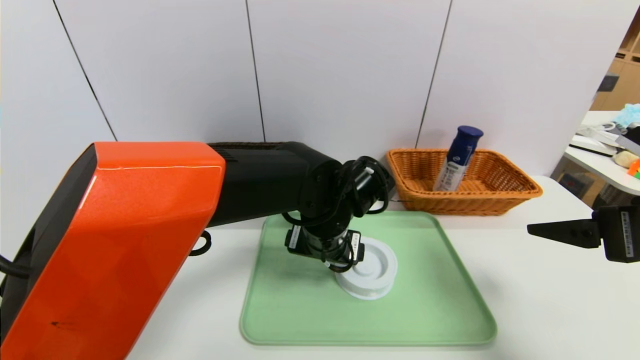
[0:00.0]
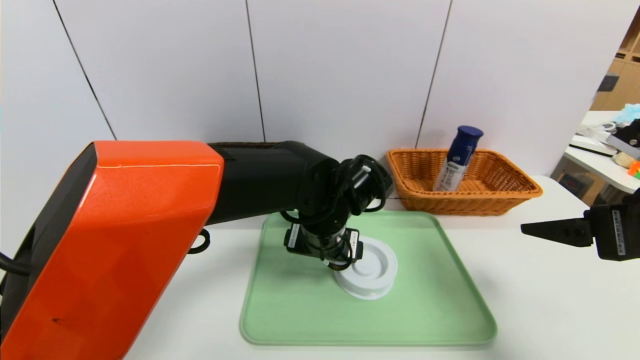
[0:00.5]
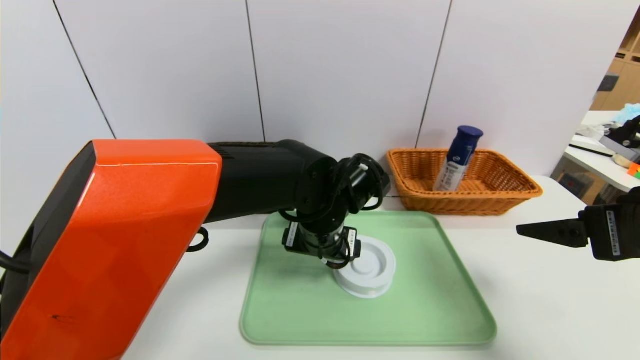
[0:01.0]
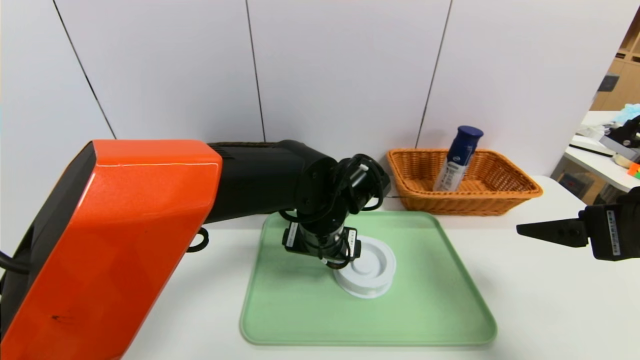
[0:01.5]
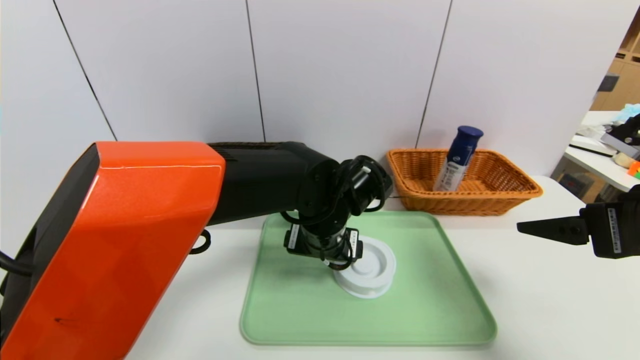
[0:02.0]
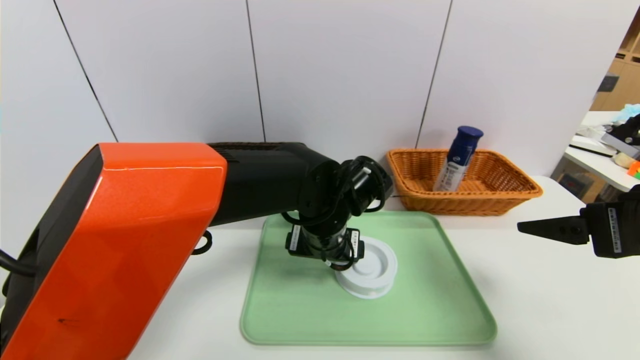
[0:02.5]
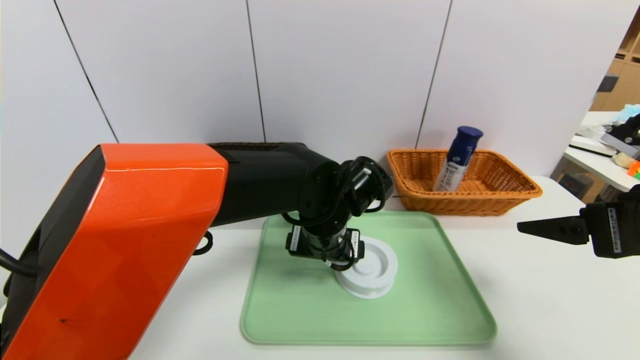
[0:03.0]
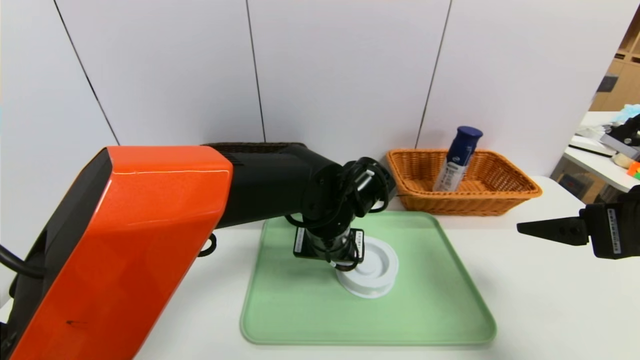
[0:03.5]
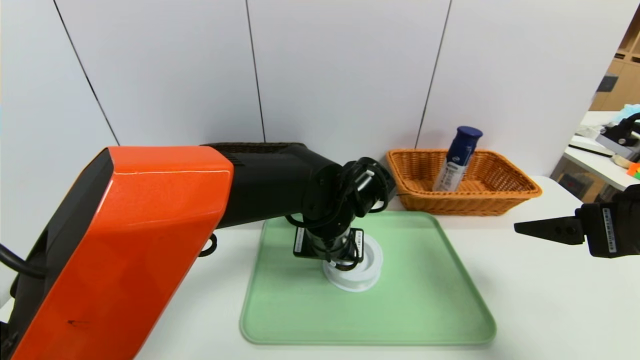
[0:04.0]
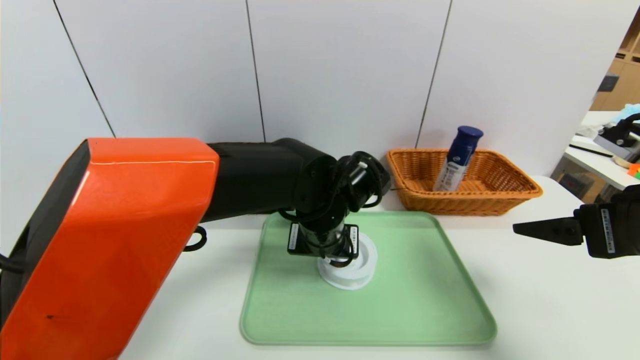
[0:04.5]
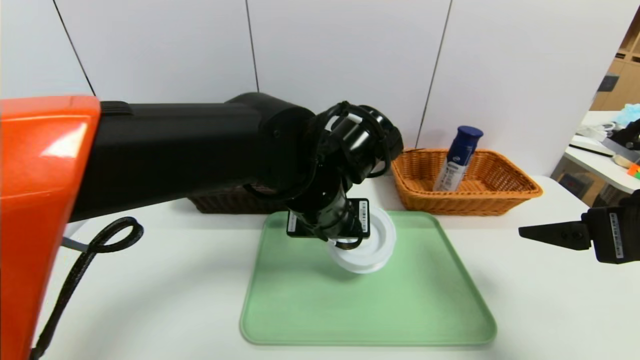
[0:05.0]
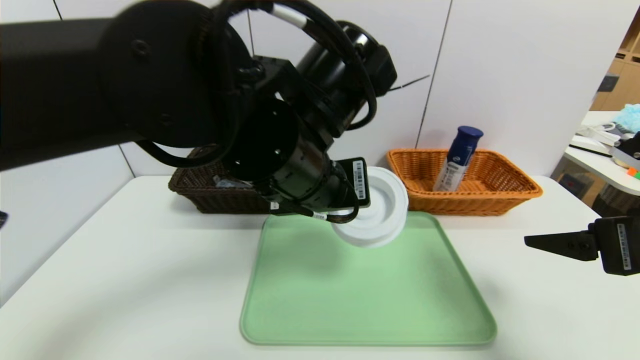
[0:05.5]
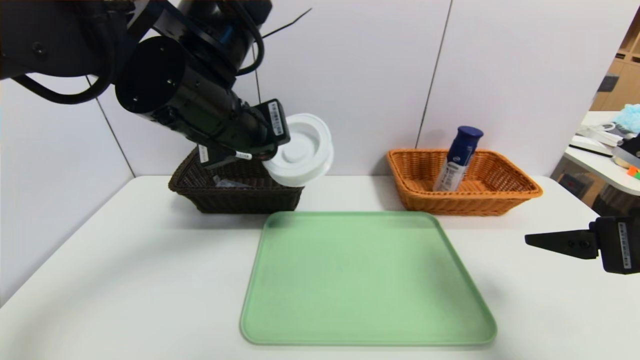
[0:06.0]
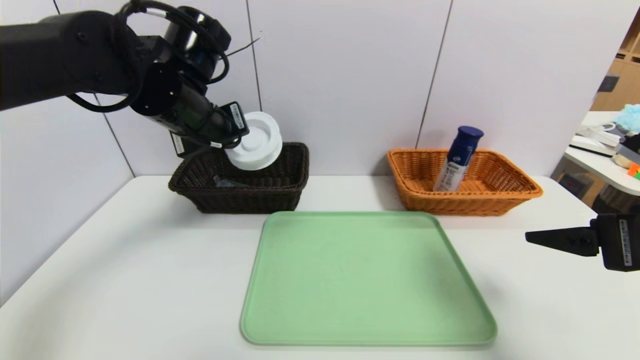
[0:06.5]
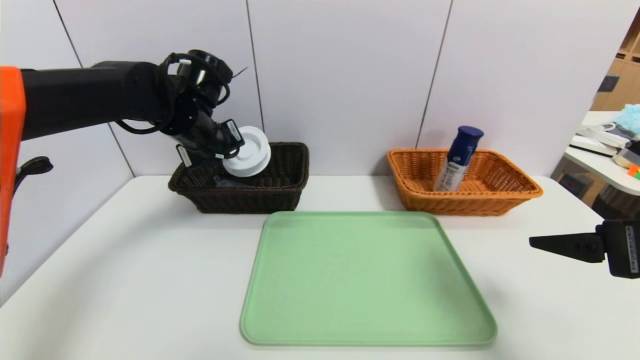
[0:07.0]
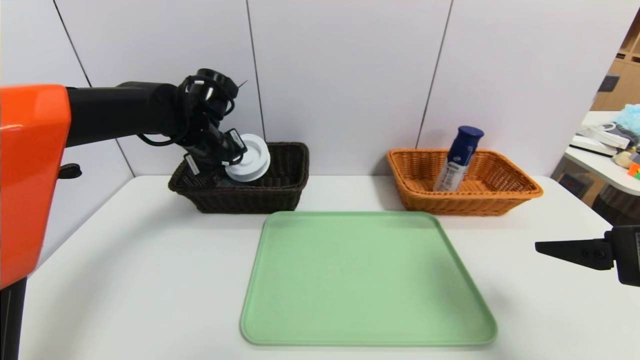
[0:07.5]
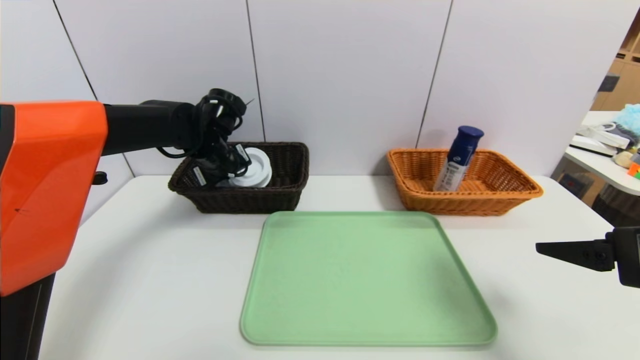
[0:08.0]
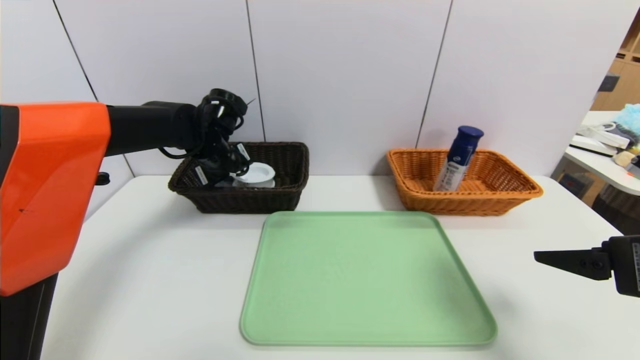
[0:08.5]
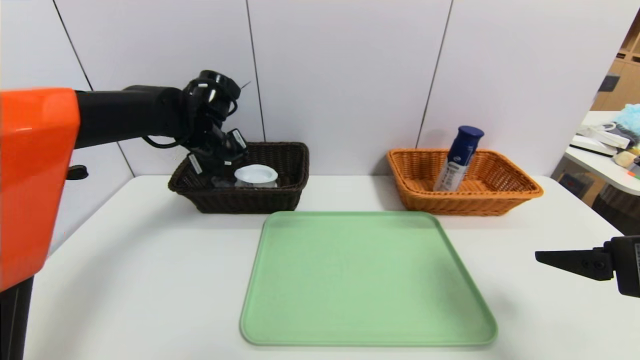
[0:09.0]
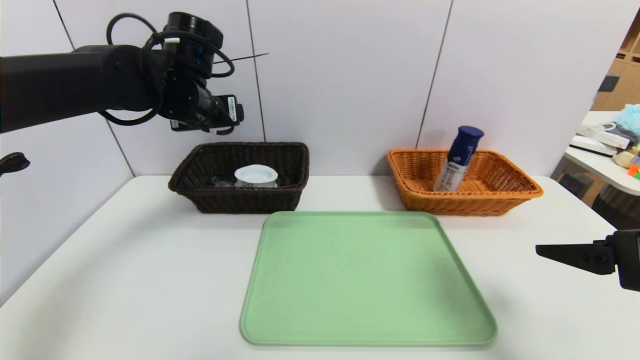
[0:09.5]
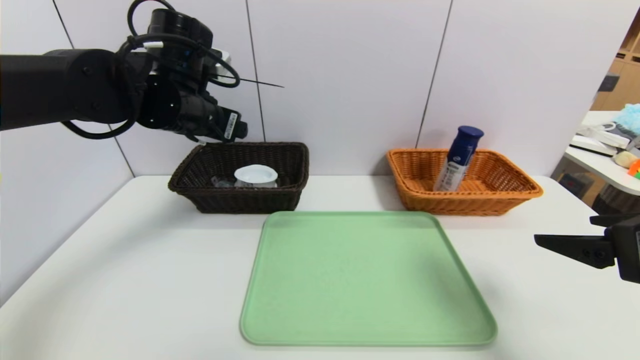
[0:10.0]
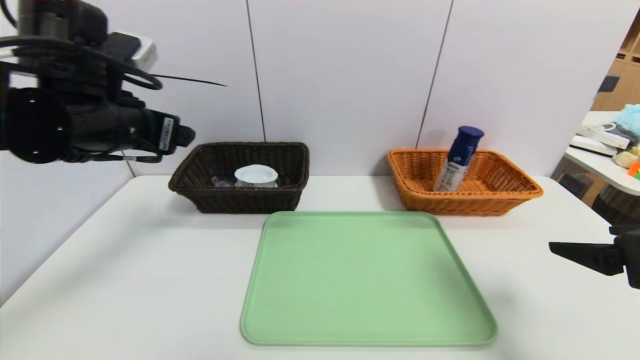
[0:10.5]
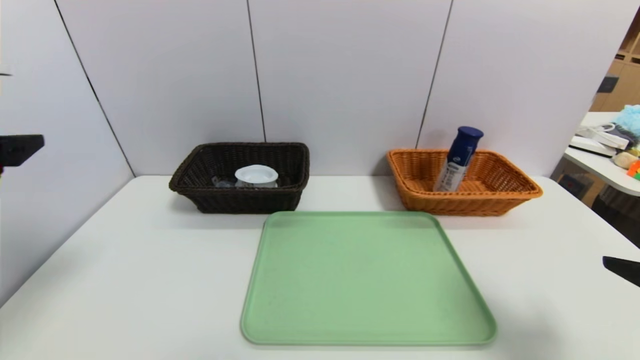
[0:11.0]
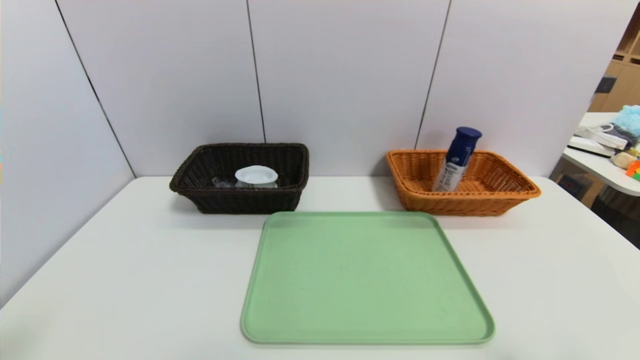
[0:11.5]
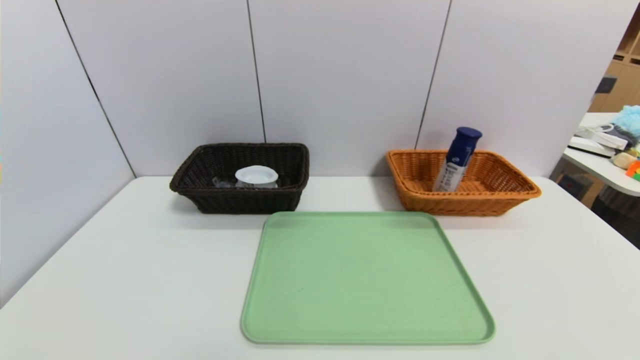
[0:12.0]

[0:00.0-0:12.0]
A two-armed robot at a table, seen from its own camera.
Task of the whole recording: place the food in the right basket with the right gripper, and place the non food items in the left basket with the left gripper.
Step, 0:00.0 to 0:09.0: Grasp the tape and put it in the left basket.
0:00.0 to 0:02.0: The two grippers keep their place.
0:02.0 to 0:04.0: The left gripper closes up.
0:04.0 to 0:06.0: The left gripper is displaced upward and to the left by roughly 20 cm.
0:06.0 to 0:08.0: The left gripper heads forward, downward and to the left, covering approximately 20 cm.
0:08.0 to 0:10.0: The left gripper travels upward and backward by about 10 cm, and opens.
0:10.0 to 0:12.0: The left gripper moves backward, some 40 cm; the right gripper shifts approximately 20 cm backward.

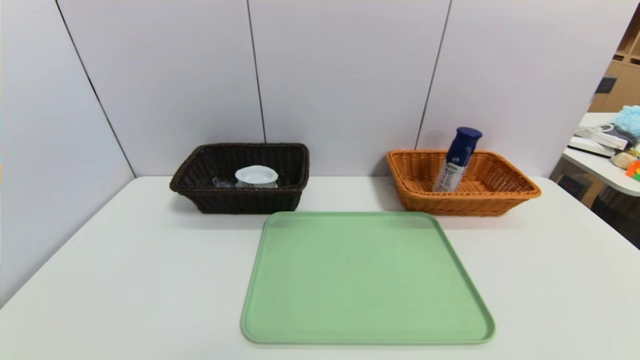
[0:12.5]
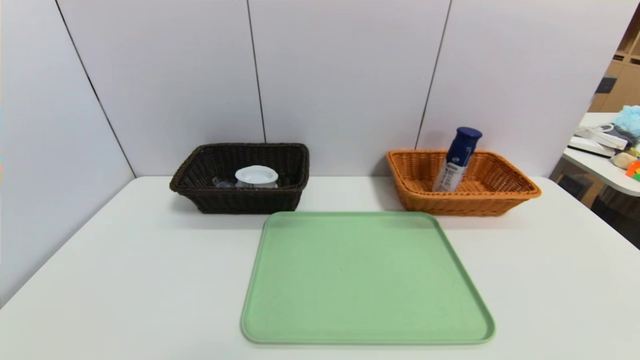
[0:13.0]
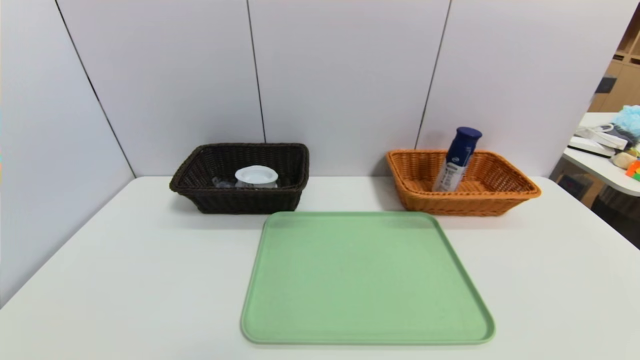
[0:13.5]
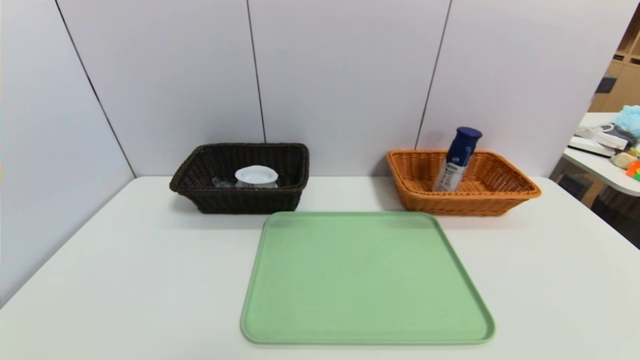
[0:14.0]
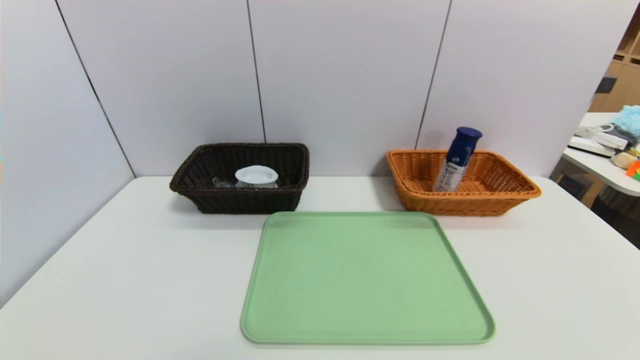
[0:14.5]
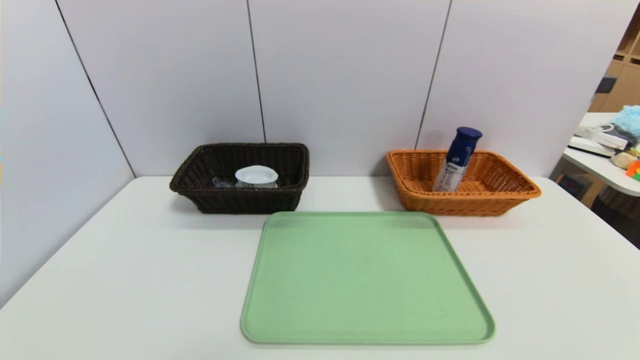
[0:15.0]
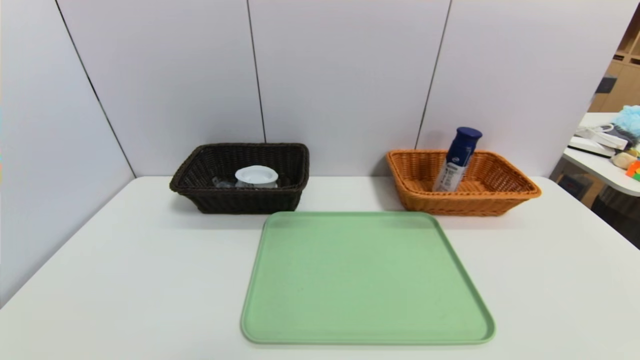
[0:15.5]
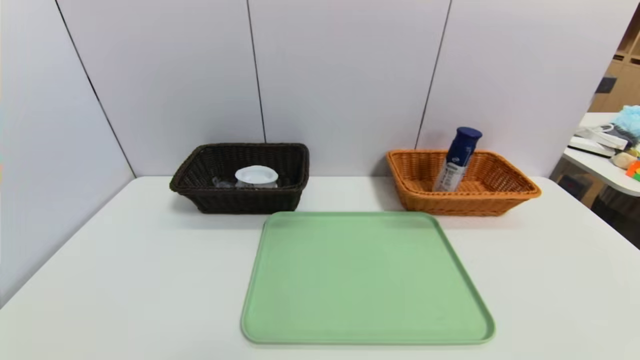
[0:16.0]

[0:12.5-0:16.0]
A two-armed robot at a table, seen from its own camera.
Task of the whole recording: place the food in the right basket with the right gripper, and place the non food items in the left basket with the left gripper.
0:14.5 to 0:16.0: Both grippers stay put.
